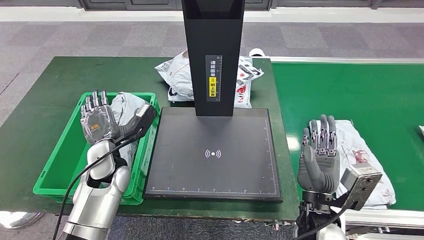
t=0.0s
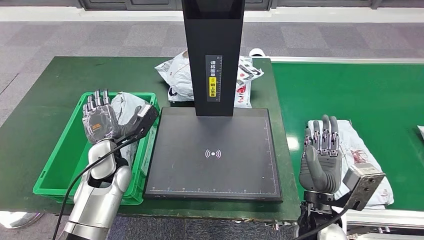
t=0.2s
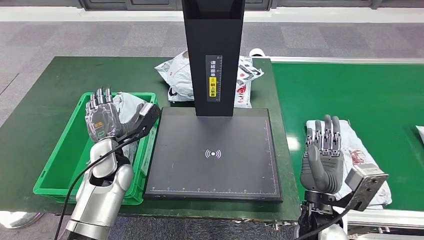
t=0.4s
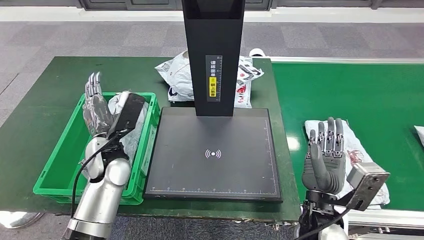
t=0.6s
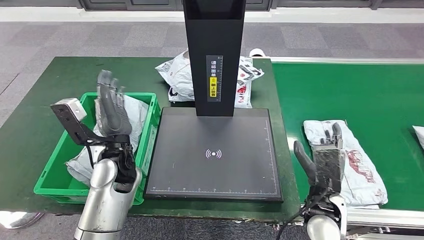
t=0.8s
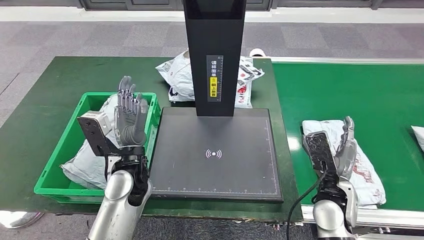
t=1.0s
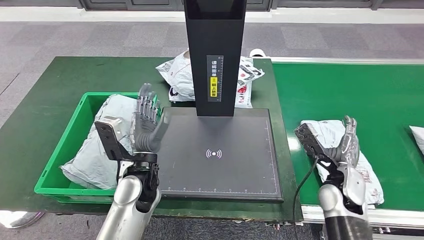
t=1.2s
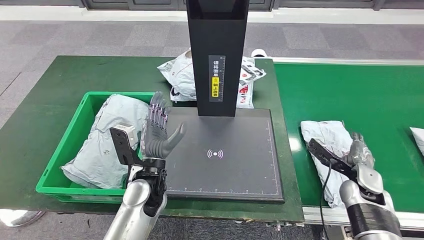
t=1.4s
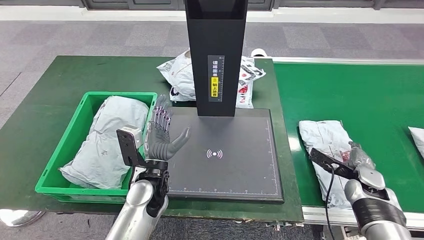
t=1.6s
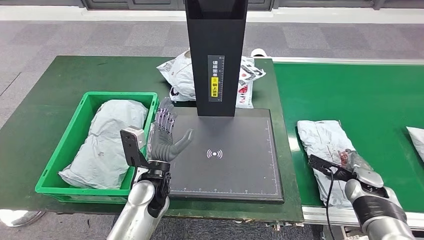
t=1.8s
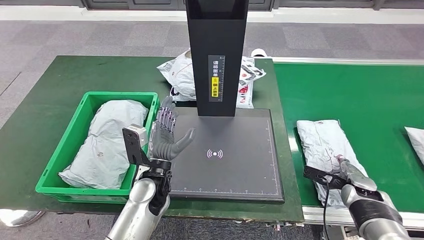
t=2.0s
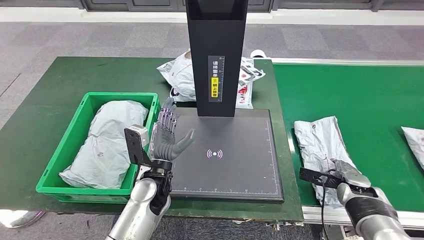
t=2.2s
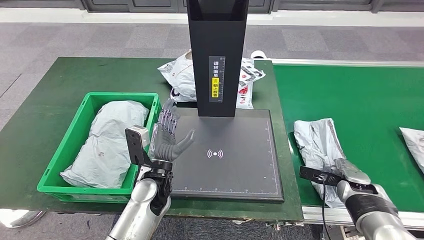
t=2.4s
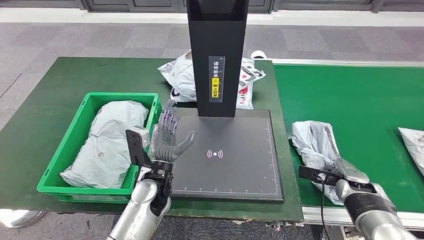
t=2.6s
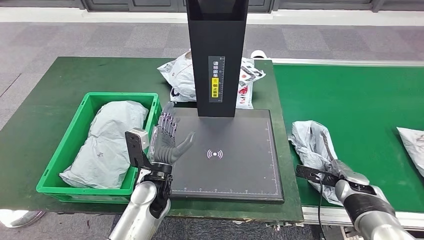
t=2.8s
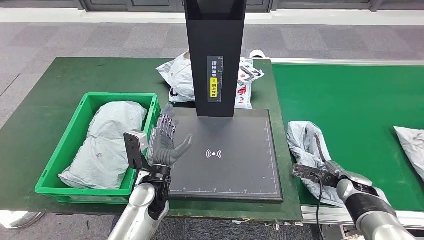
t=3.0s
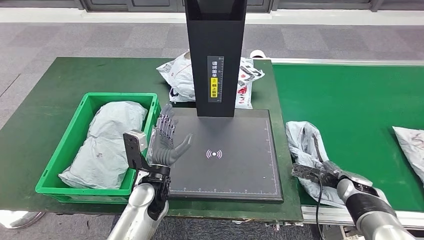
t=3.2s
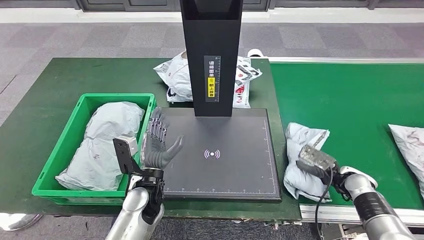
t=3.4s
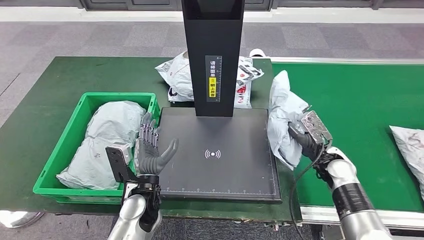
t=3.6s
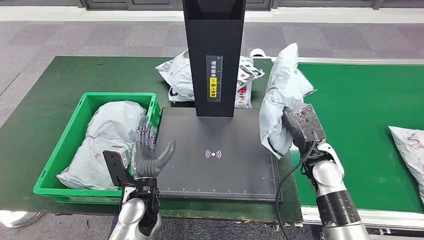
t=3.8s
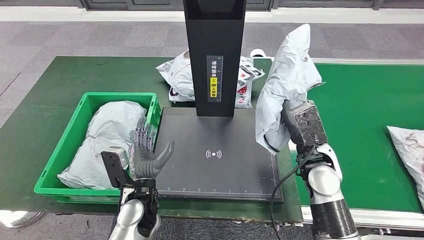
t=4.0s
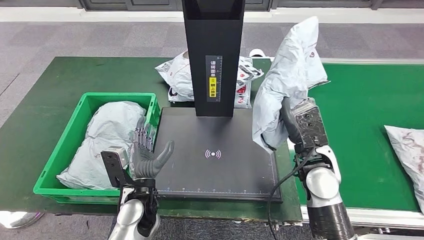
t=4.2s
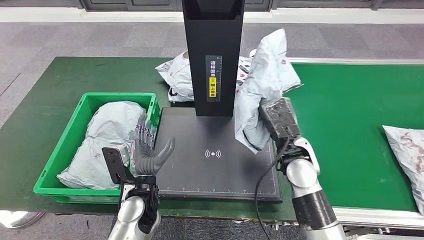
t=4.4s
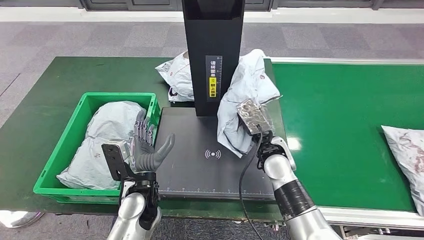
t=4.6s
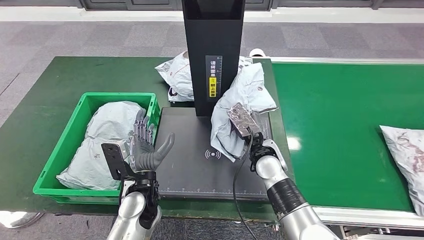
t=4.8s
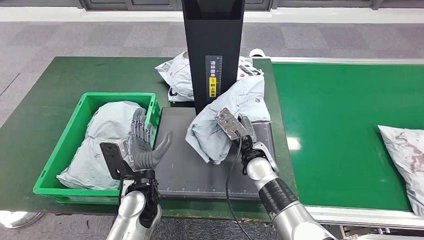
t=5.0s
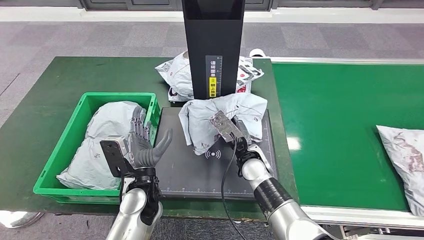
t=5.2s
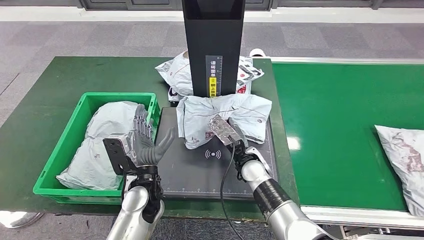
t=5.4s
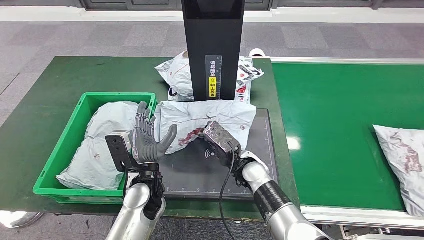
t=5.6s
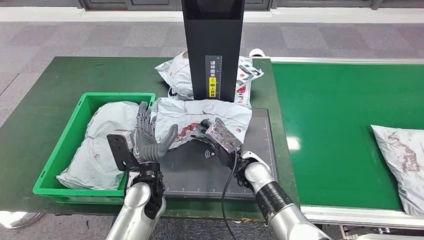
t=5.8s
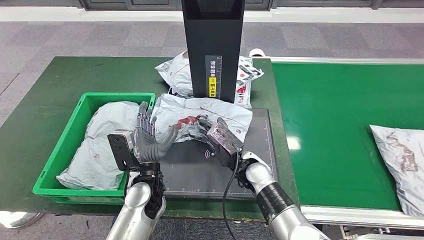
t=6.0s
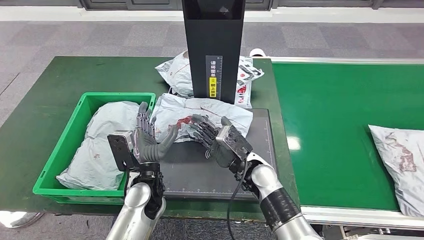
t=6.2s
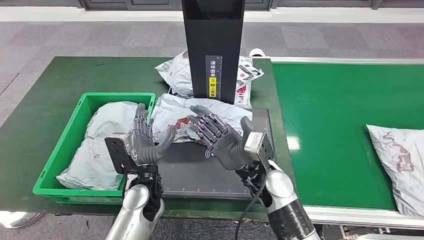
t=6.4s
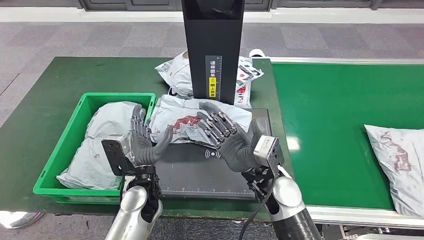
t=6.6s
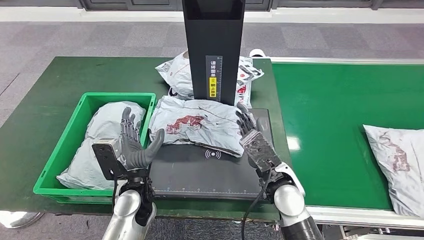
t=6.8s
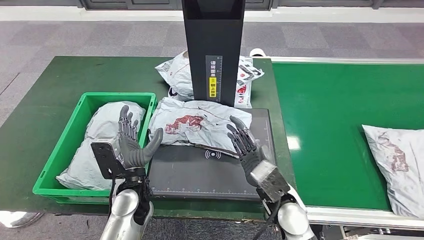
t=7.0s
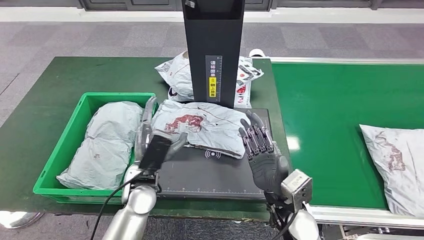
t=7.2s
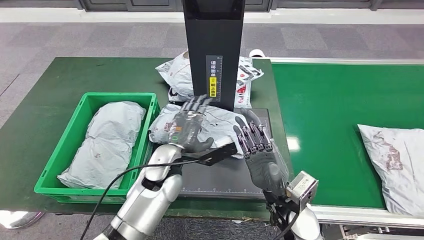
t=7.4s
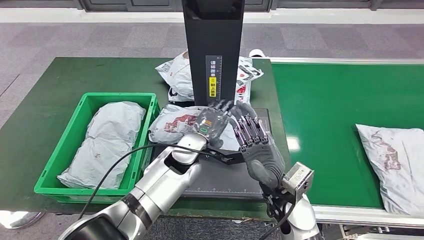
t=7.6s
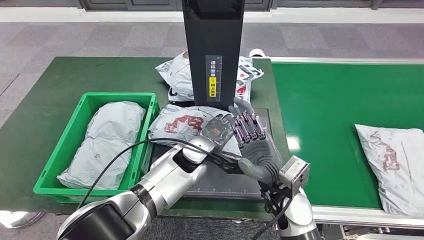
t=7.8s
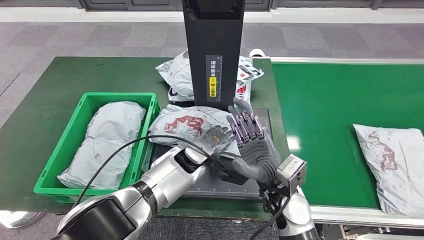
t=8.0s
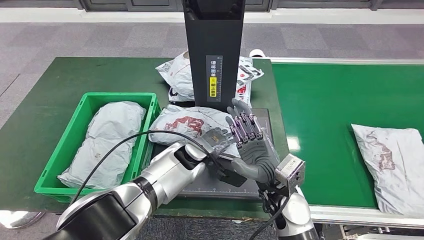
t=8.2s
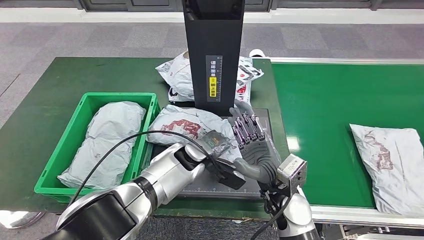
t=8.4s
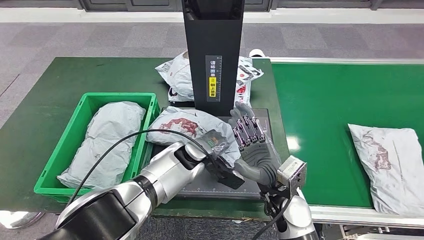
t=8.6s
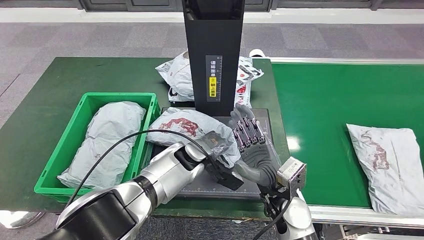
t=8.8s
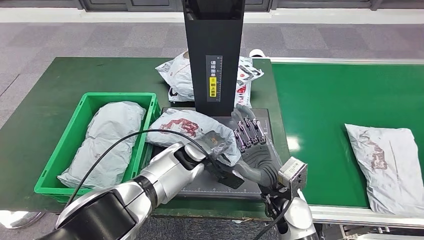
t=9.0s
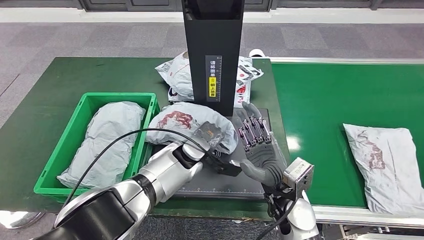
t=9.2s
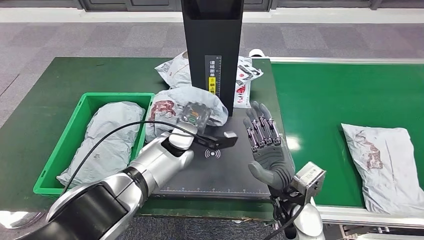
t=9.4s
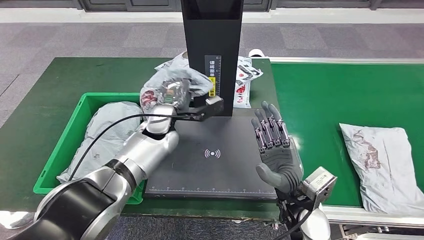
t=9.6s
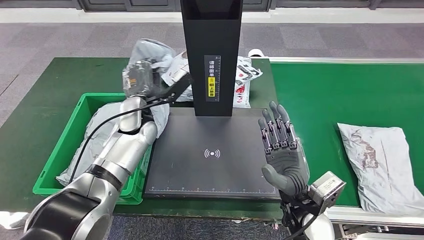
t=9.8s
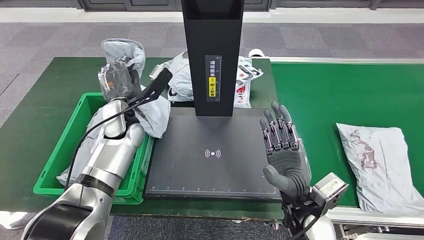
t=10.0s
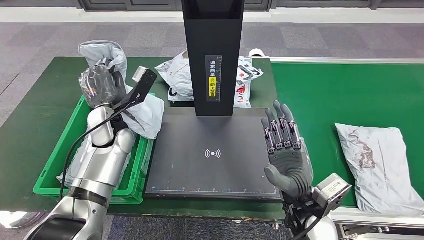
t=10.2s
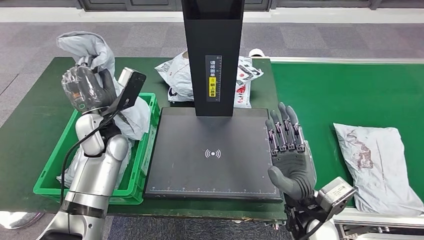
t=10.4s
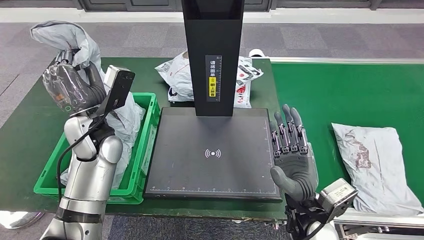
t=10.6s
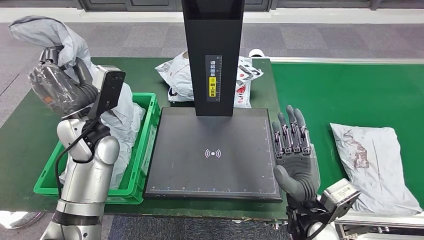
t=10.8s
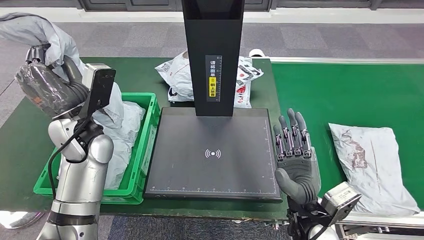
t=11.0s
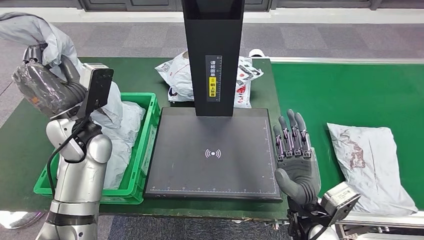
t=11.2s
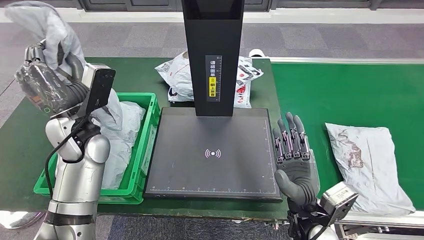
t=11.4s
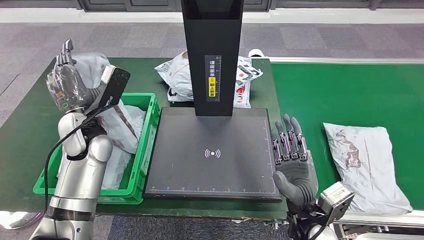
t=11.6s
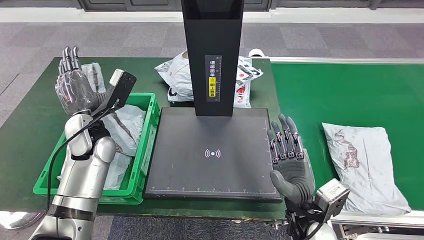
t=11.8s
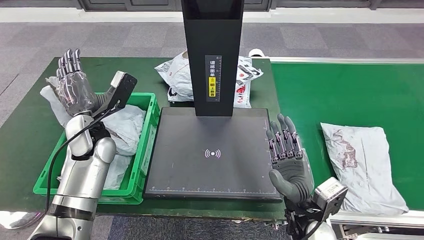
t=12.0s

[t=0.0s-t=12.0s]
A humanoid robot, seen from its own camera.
Step, t=0.0s to t=1.2s: Put the parcel inside the courier box.
Step, t=1.6s to t=4.4s: Pick up the parcel from the conveyor belt.
Step, t=4.6s to t=6.8s: Place the parcel onto the inbound machine.
Step, t=7.0s to t=10.2s: Pick up the parcel from the inbound machine.
t=10.4s to t=12.0s: There are only small adjustments of the hands.

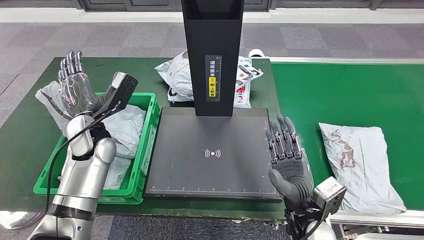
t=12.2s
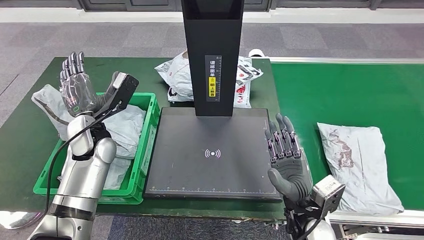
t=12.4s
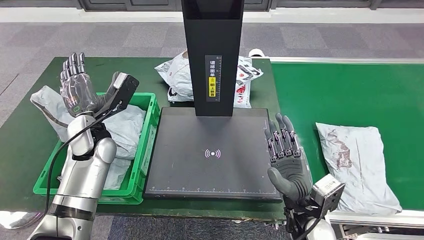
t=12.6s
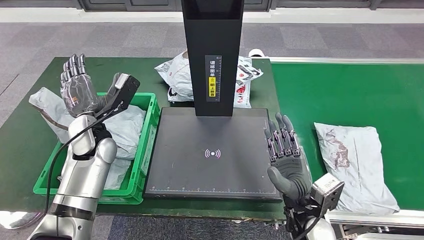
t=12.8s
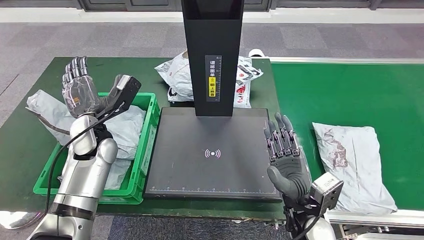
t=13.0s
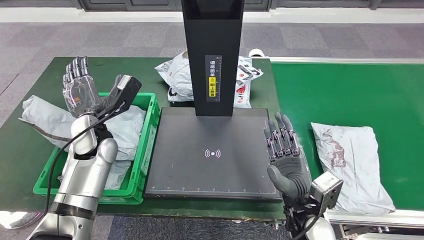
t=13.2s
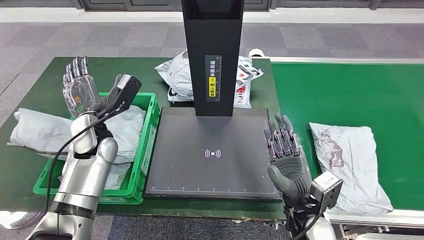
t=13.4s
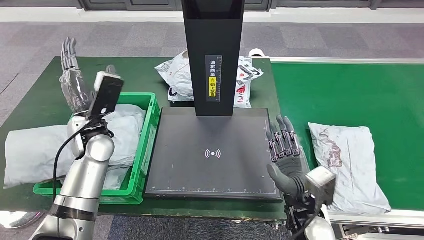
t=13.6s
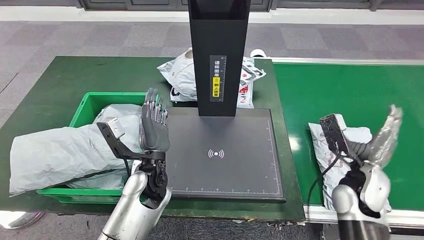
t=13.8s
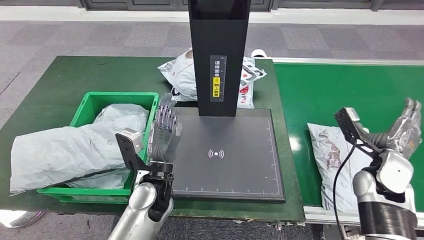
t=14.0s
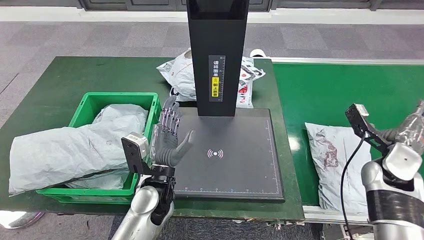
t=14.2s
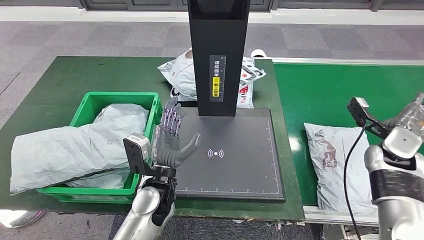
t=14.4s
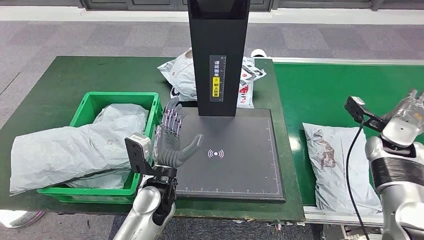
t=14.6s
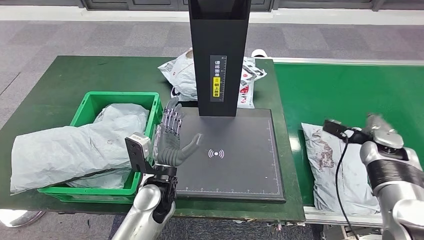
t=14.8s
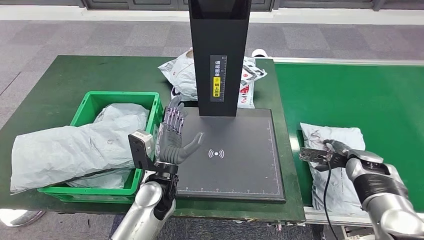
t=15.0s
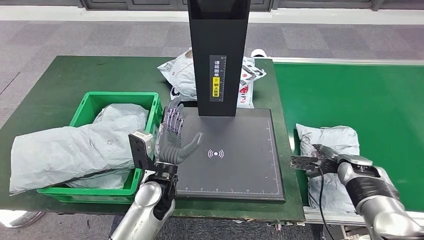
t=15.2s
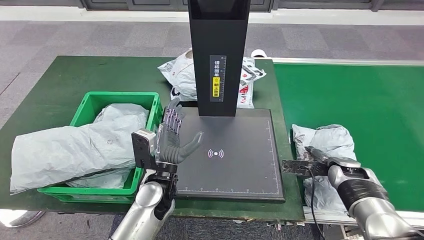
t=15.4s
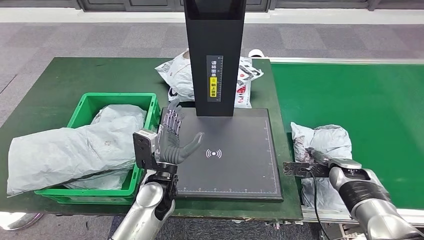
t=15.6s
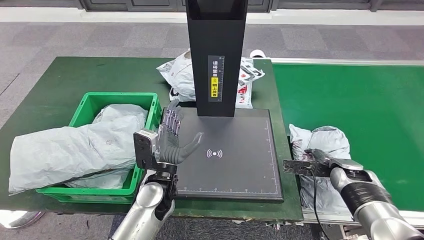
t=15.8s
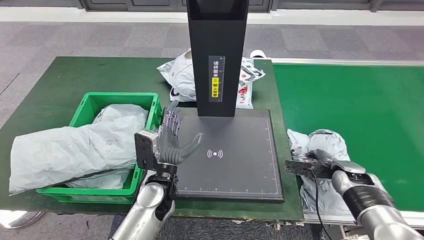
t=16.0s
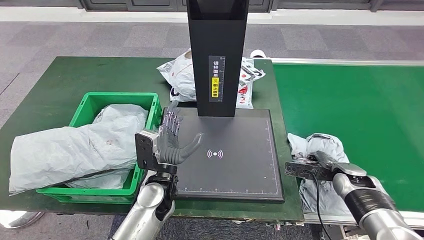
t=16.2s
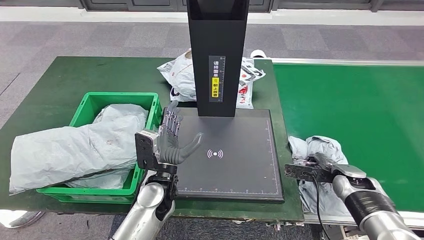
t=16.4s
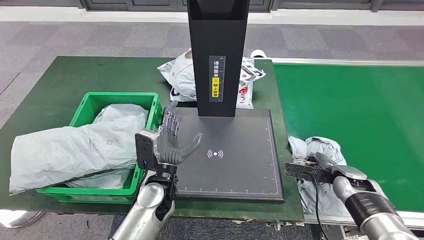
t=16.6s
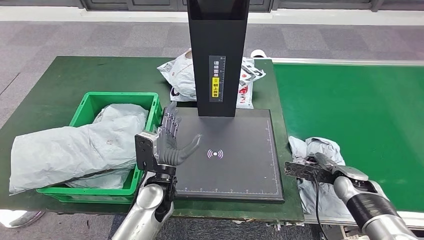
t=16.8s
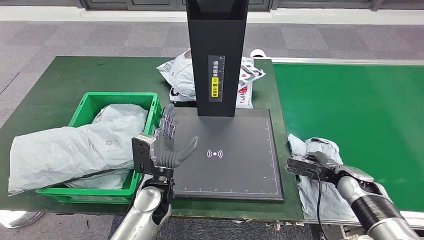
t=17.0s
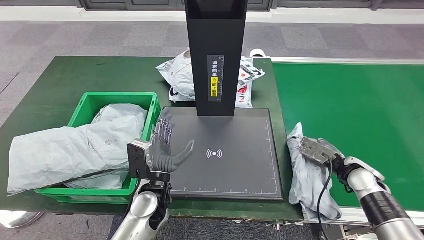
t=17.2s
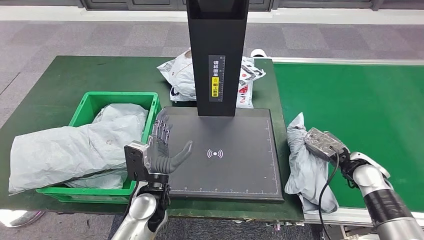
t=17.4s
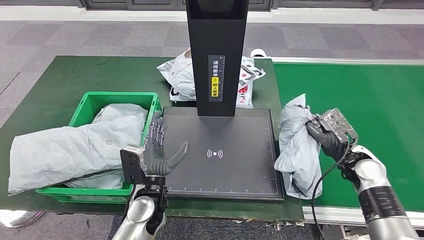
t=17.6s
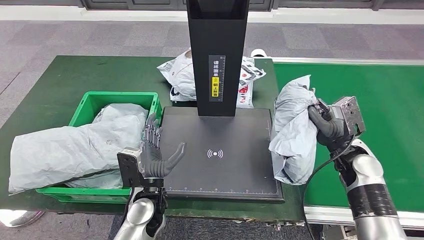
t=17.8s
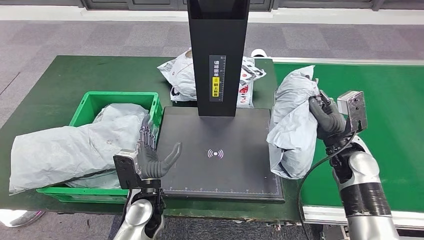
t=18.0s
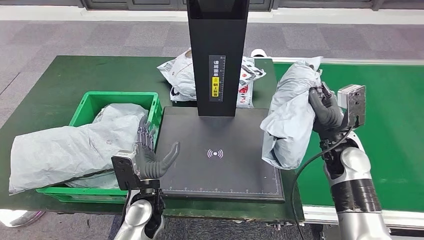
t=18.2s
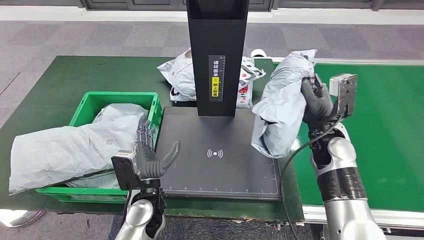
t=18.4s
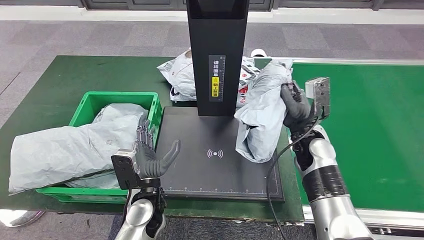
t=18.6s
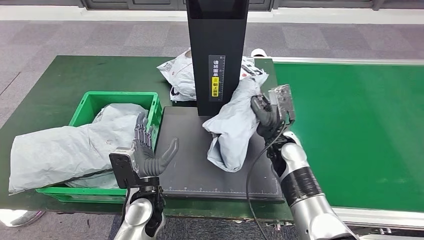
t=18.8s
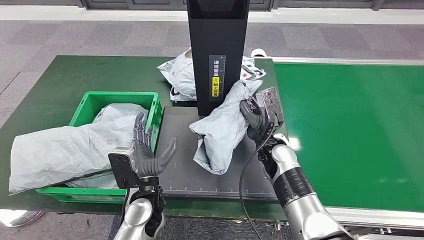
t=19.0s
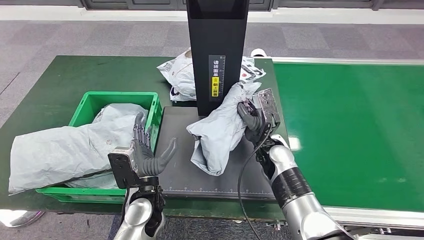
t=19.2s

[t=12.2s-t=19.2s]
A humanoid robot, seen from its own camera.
Step, t=13.4s to t=18.2s: Pick up the parcel from the conveyor belt.
t=15.0s to t=16.4s: The right hand moves approximately 5 cm.
t=16.4s to t=17.8s: The right hand moves upward, roughly 10 cm.
